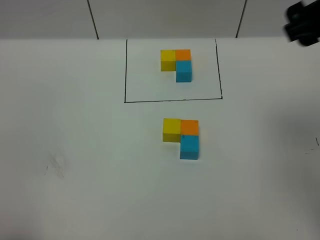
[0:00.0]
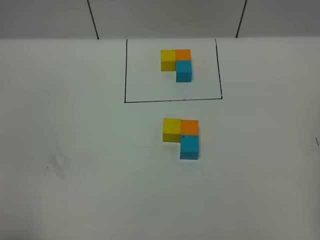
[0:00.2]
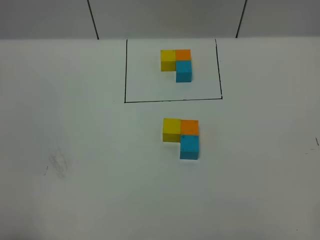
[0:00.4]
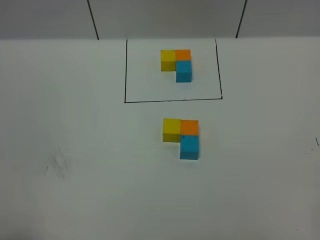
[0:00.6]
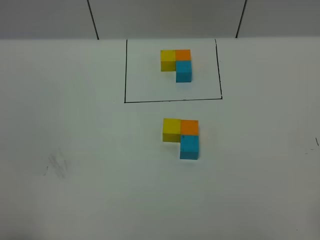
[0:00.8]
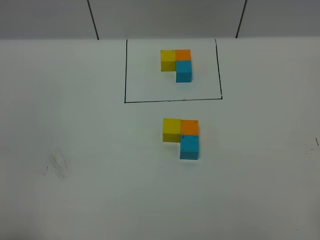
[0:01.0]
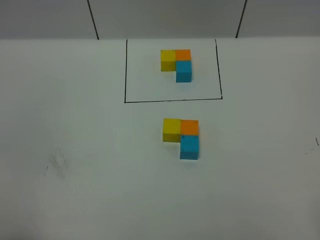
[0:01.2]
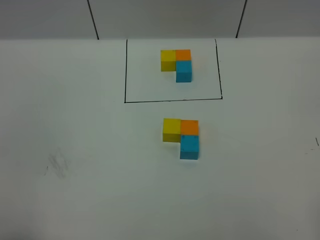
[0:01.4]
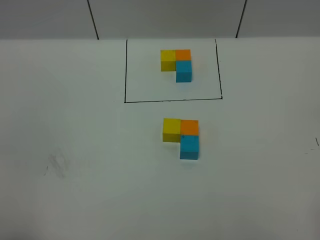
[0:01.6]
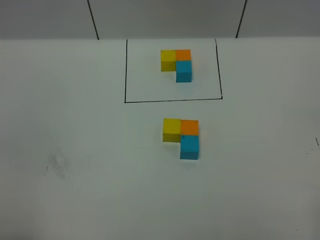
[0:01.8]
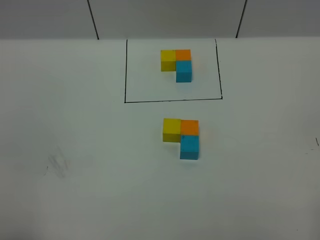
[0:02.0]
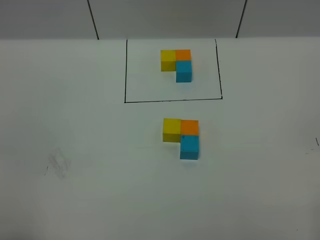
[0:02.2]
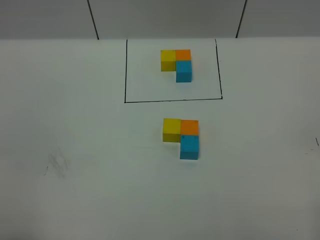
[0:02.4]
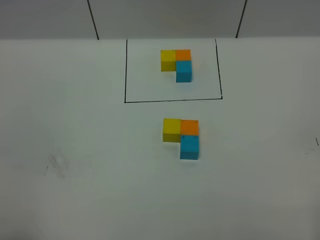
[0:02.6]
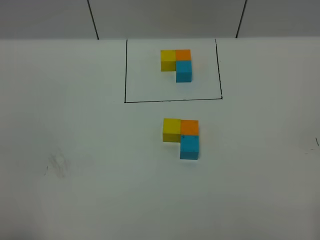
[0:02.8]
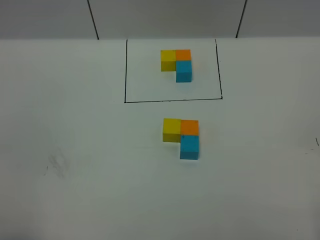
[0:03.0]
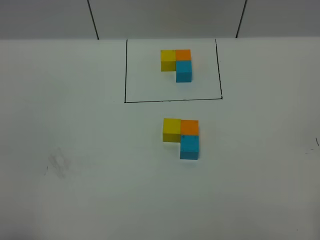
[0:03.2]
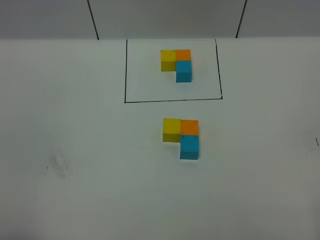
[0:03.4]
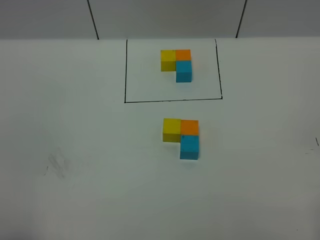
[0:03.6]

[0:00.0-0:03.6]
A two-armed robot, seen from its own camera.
Task of the whole recording: According to the building block template in front, assemble the scattered blocks together.
0:00.0 to 0:01.8: The right gripper moves backward, approximately 25 cm.

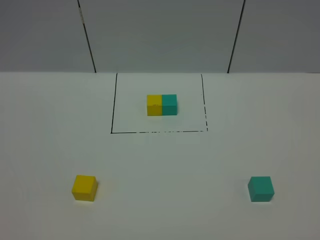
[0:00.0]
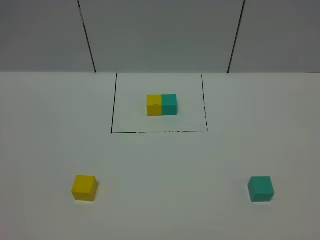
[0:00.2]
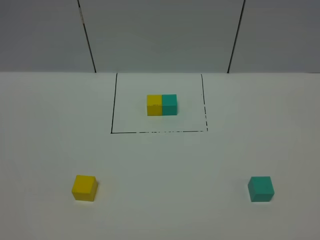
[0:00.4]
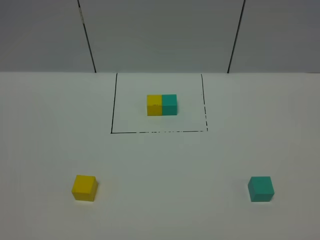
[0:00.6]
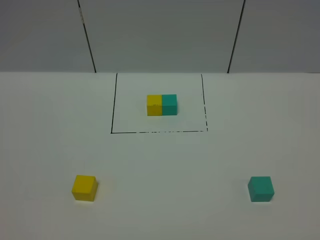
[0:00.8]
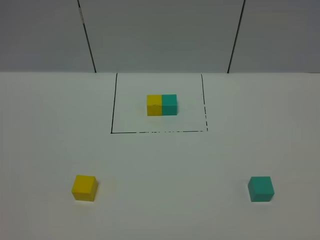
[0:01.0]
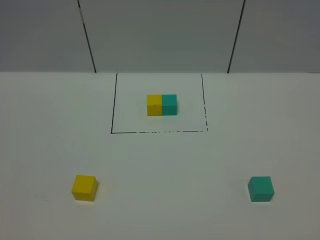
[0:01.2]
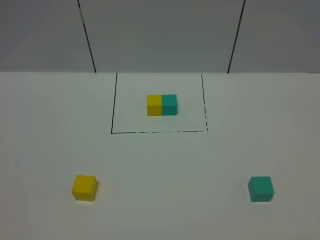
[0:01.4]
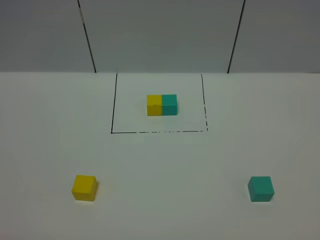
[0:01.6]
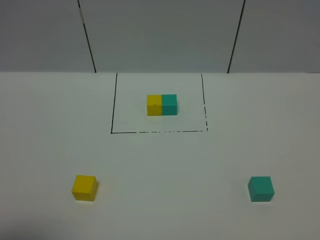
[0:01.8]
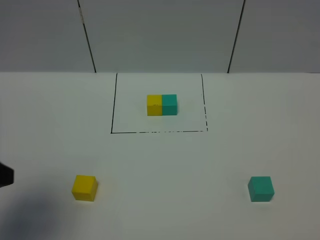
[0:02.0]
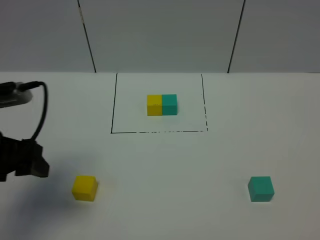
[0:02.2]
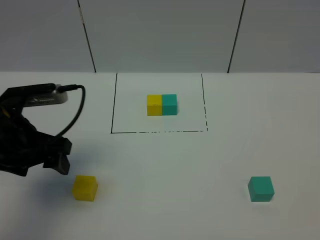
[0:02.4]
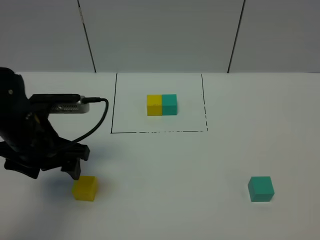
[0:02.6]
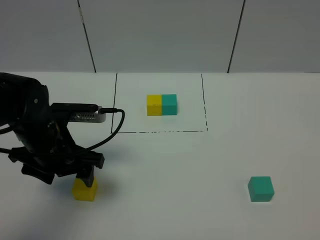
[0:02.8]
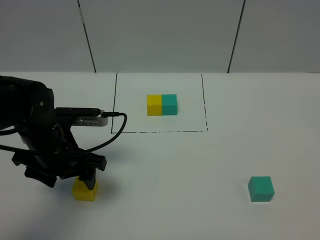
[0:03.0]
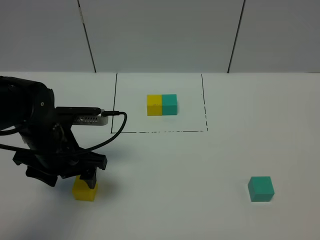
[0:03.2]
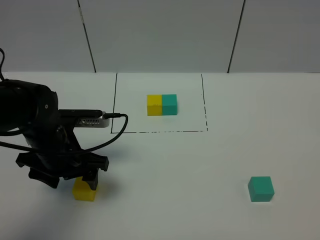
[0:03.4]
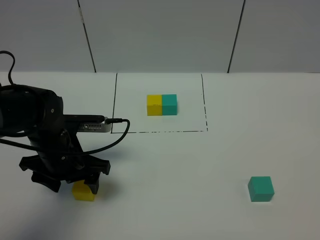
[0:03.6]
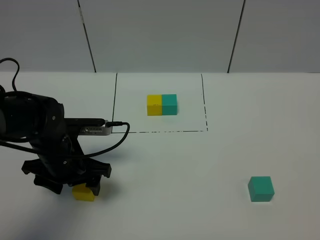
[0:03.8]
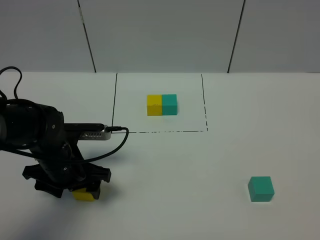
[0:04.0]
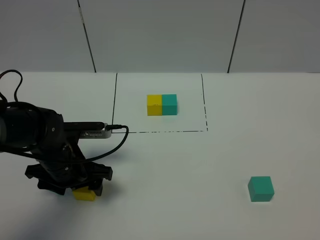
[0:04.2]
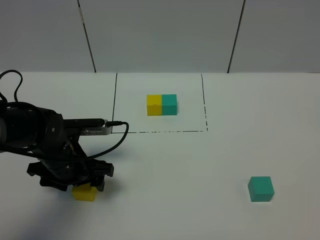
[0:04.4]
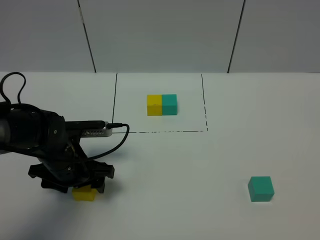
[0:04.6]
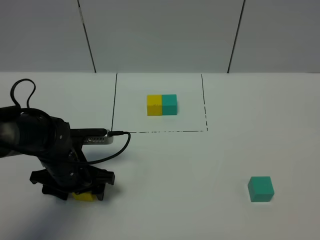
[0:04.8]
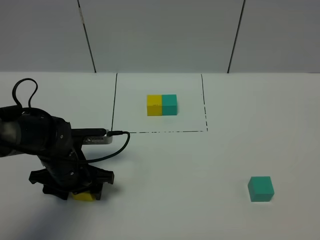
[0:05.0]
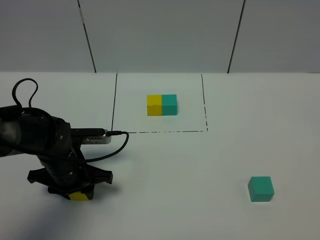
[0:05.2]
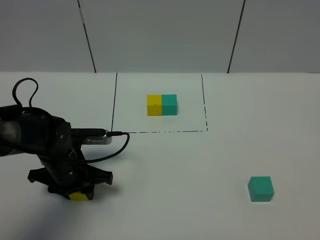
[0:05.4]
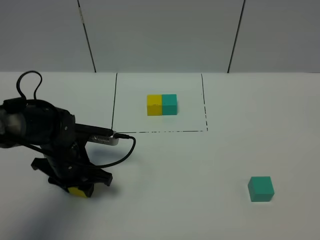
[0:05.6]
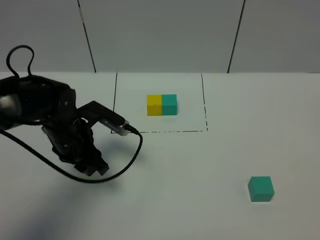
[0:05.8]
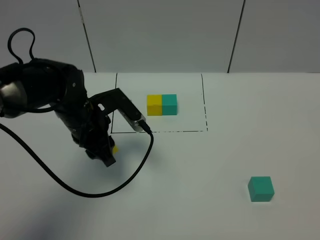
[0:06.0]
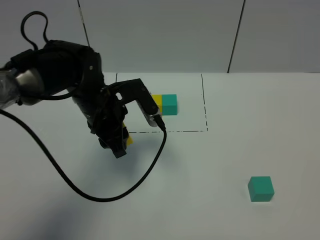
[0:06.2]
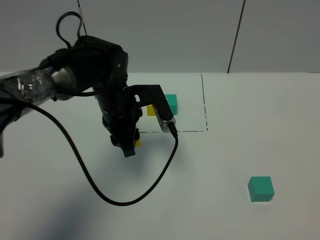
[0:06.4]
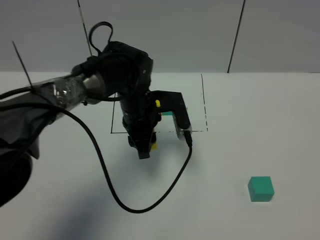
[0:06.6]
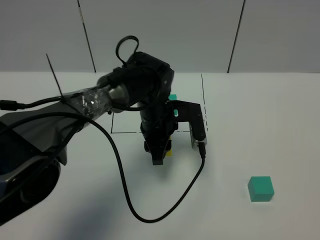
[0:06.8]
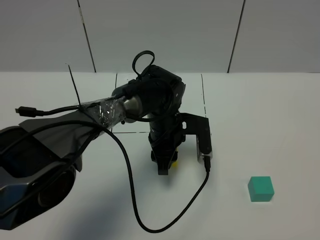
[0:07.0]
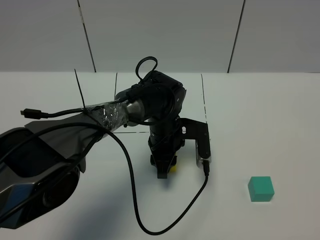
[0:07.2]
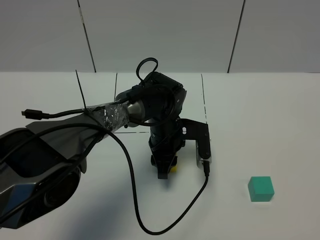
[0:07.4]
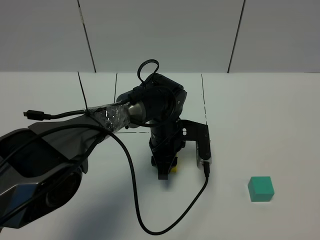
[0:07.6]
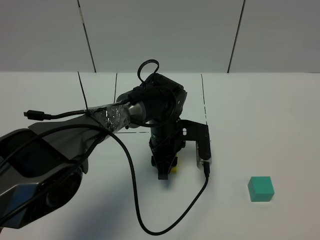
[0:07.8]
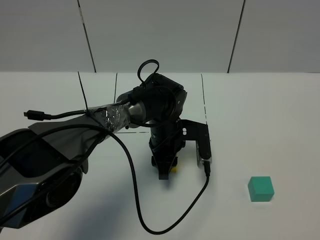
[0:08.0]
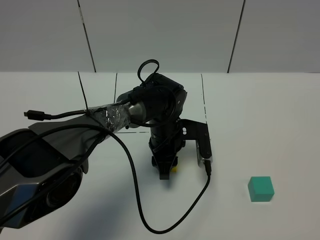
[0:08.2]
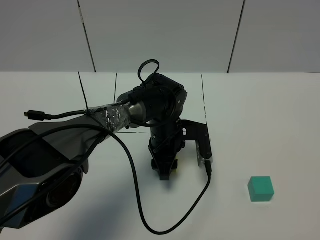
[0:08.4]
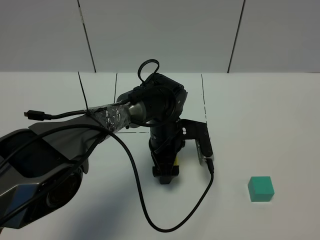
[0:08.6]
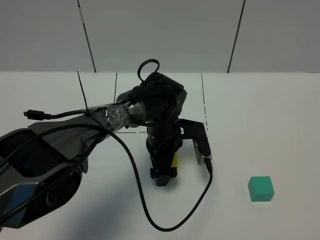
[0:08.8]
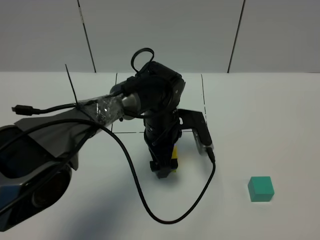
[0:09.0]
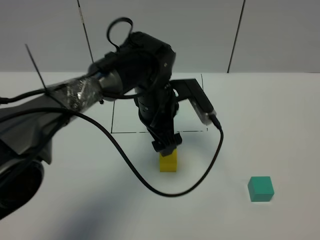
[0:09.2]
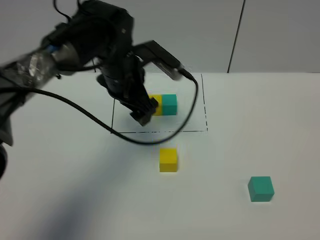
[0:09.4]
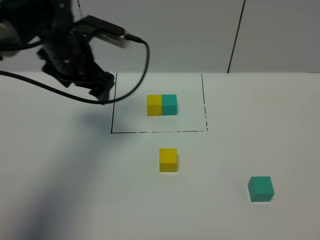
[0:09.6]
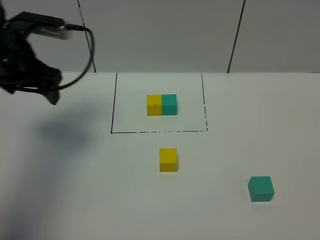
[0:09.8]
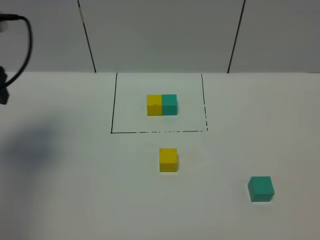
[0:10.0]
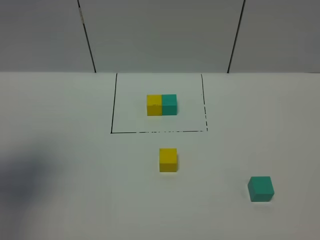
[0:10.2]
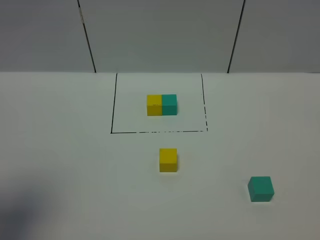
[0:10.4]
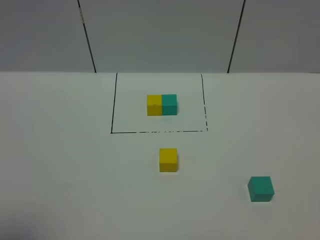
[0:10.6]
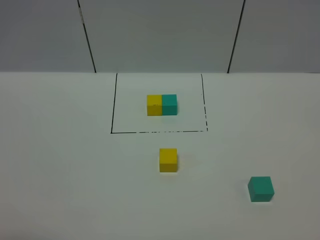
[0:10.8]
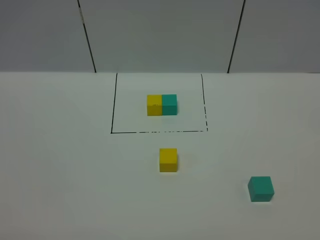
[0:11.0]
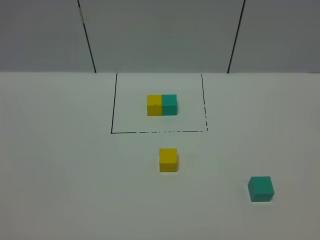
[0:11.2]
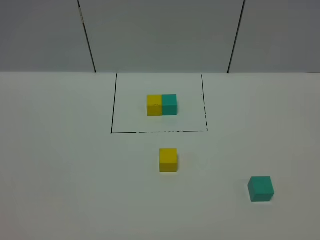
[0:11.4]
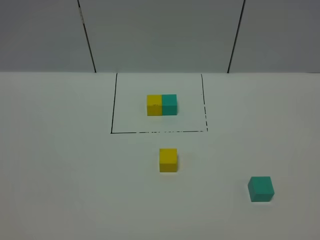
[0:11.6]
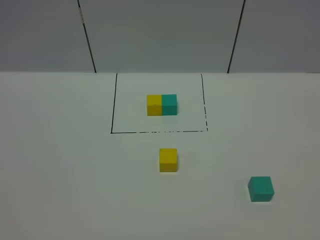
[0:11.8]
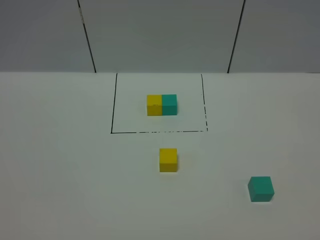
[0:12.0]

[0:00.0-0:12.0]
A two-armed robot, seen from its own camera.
Task of the whole recording: According to the building block template in front, assemble the scattered blocks together.
Step, 0:01.8 to 0:08.8: Put the yellow cube in the center of the table.
0:01.6 to 0:03.0: The left gripper goes roughly 30 cm forward and downward.
0:03.0 to 0:04.4: The left gripper shifts some 5 cm downward.
0:04.4 to 0:06.0: The left gripper moves upward and forward, roughly 10 cm, and closes.
0:06.0 to 0:07.6: The left gripper shifts approximately 15 cm to the right and downward.
0:07.6 to 0:09.0: The left gripper opens up.
0:09.0 to 0:10.4: The left gripper is displaced to the left, backward and upward by some 50 cm.
0:10.4 to 0:12.0: The left gripper travels backward and downward by some 15 cm, and closes up.

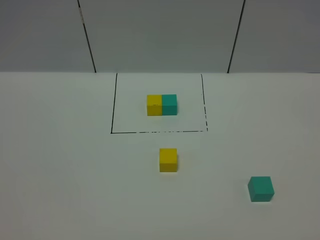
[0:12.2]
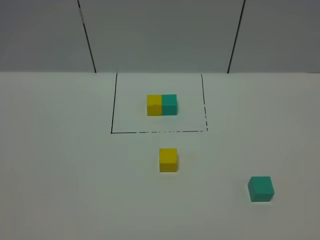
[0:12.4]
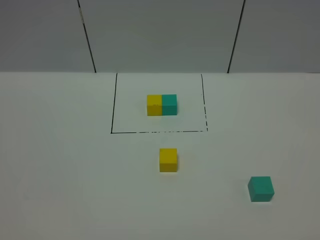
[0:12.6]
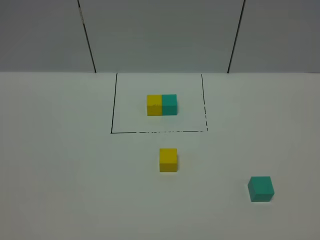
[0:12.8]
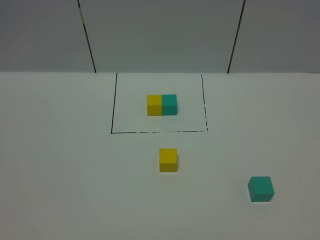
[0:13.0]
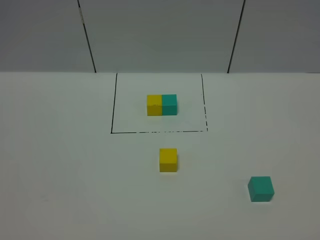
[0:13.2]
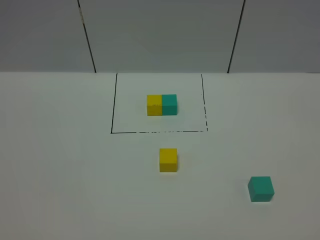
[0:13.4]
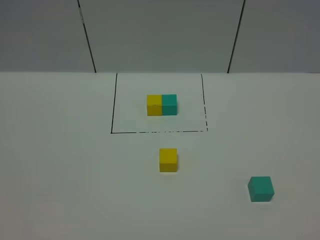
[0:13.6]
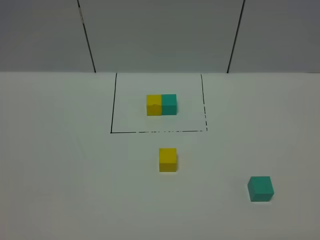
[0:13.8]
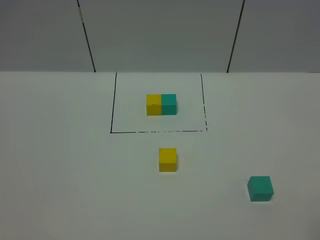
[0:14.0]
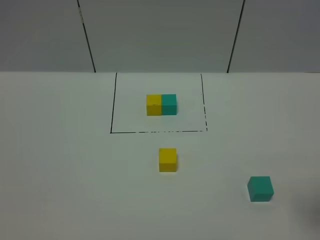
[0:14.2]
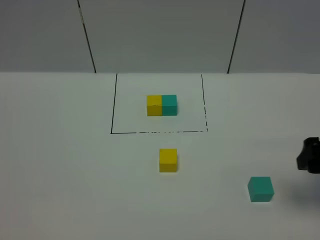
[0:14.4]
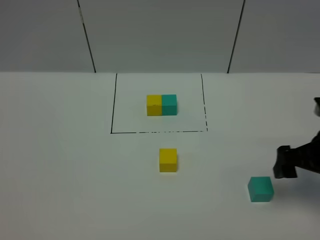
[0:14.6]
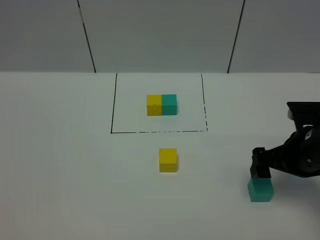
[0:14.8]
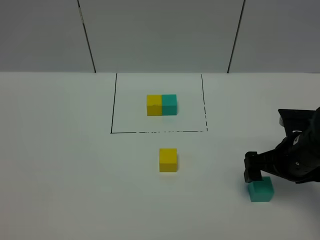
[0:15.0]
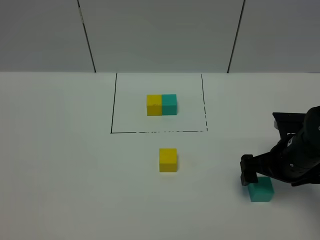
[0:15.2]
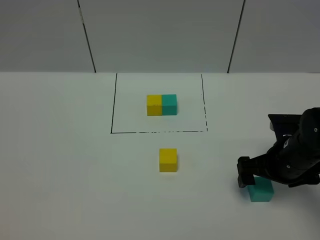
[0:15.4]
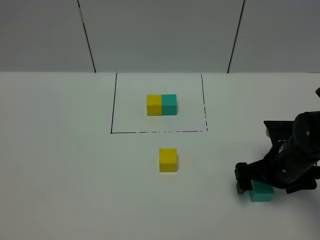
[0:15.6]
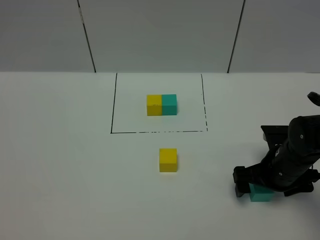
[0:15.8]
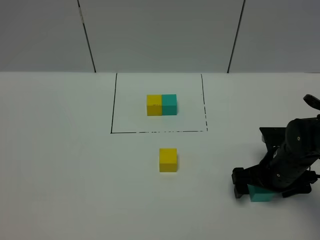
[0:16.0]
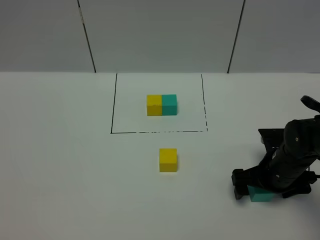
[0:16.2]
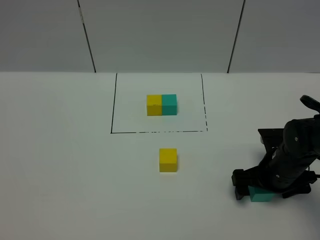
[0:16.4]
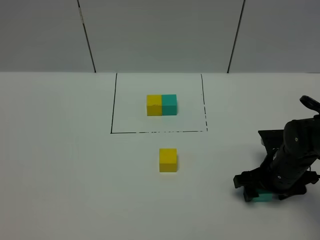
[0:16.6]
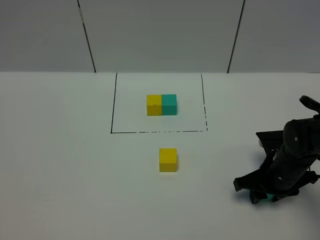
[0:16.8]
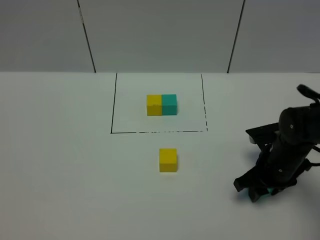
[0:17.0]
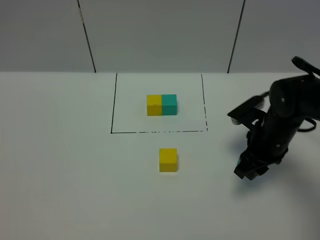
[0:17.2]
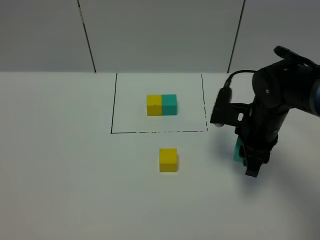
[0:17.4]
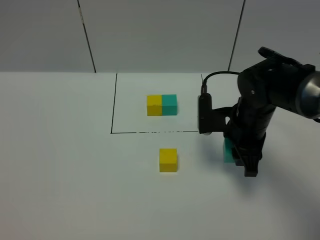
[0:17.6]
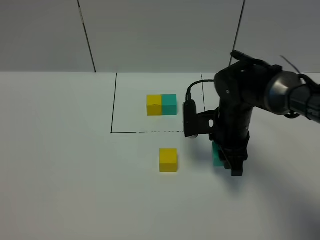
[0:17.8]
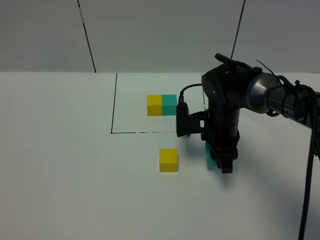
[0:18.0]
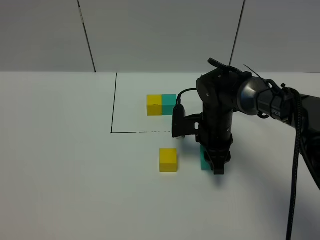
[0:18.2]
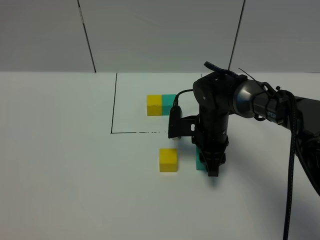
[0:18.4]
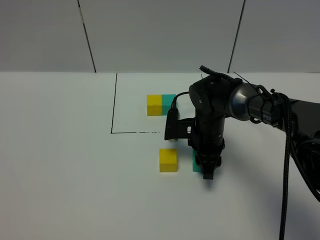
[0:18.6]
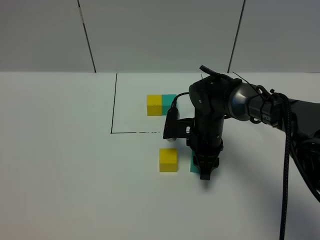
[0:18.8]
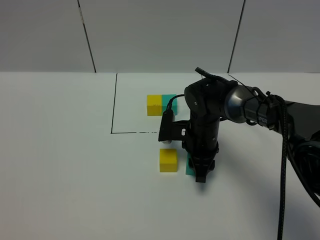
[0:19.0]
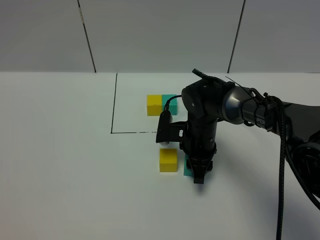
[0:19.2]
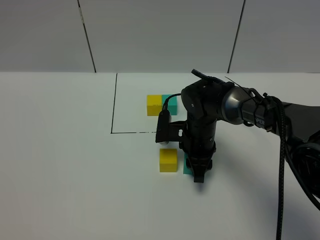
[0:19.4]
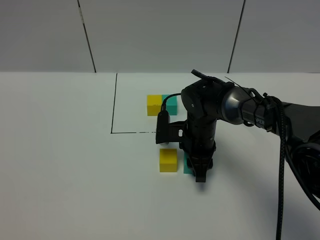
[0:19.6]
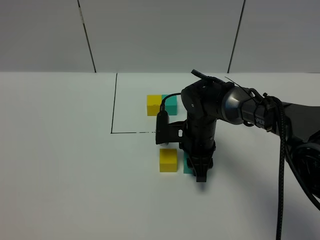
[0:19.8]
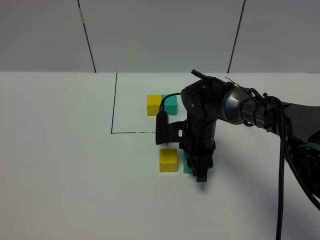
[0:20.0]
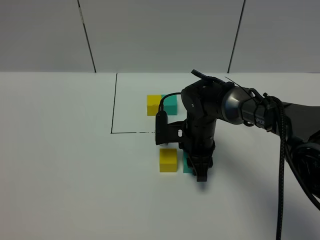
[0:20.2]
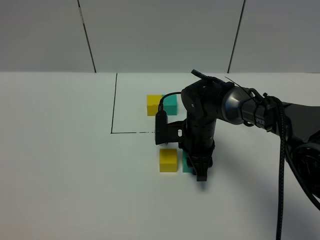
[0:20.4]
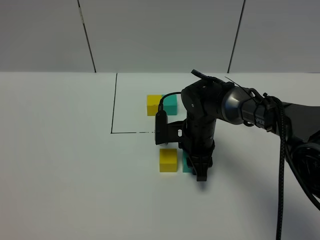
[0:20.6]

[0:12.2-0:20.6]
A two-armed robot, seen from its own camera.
Task of the whole recording: According to the building block template in front, assemble the scattered blocks together.
0:12.2 to 0:13.6: Neither gripper changes place.
0:13.6 to 0:15.0: The right gripper is displaced forward by some 30 cm, and opens.
0:15.0 to 0:16.4: The right gripper is displaced downward by about 5 cm.
0:16.4 to 0:17.8: The right gripper shifts some 15 cm to the left, forward and upward, and closes.
0:17.8 to 0:19.2: The right gripper shifts by some 5 cm.
0:19.2 to 0:20.6: The grippers make only small movements.
